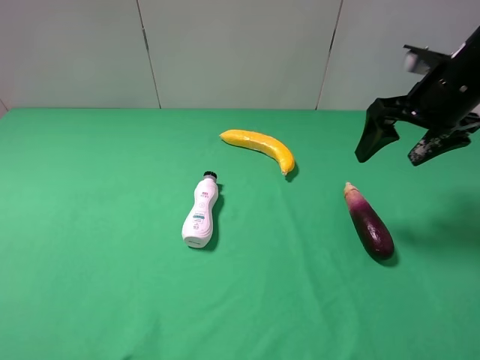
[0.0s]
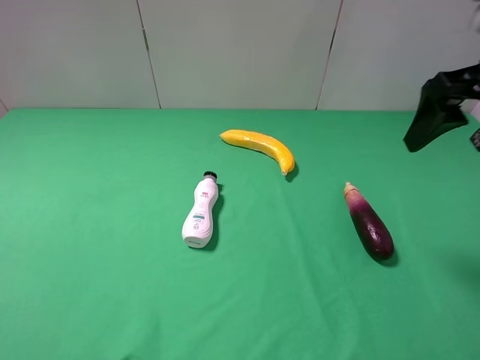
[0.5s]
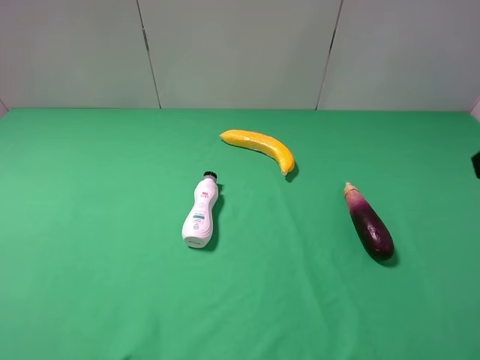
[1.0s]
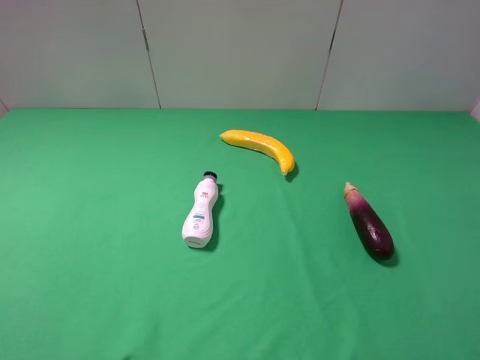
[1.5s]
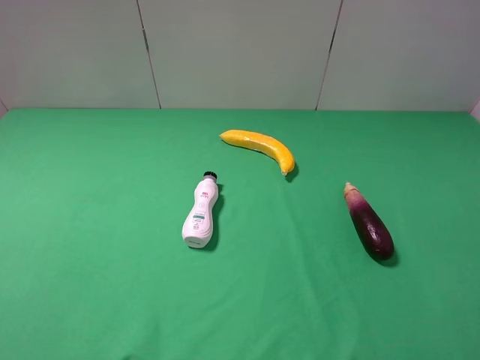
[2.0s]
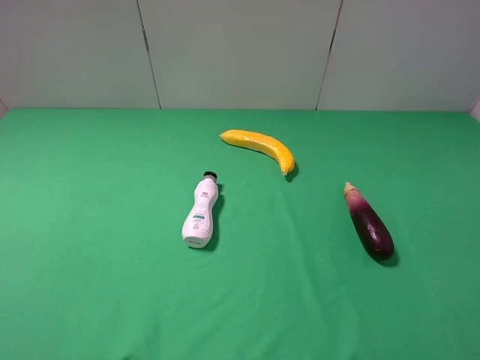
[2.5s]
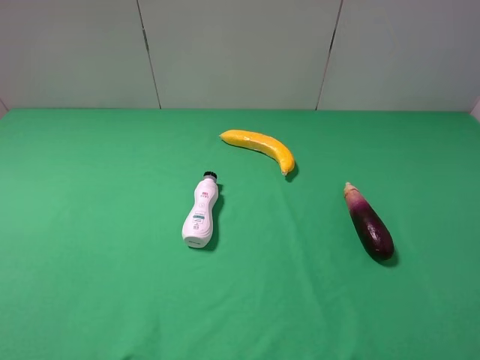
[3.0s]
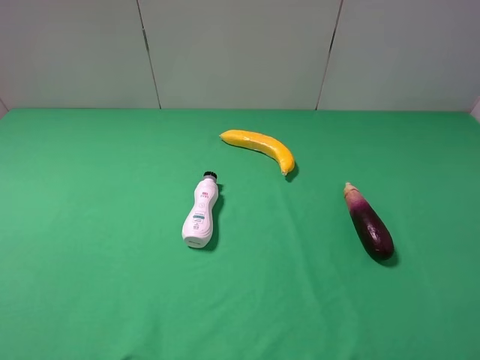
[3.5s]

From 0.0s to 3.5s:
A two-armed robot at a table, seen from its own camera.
Task of the whole recording: use the left gripper to pick up the item and transfer it from the left gripper to the right gripper.
From 0.0s to 2.0s: The right gripper shifts approximately 30 cm backward.
